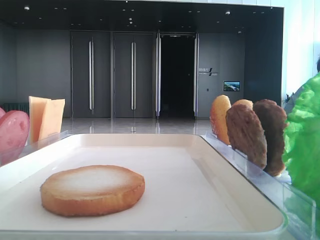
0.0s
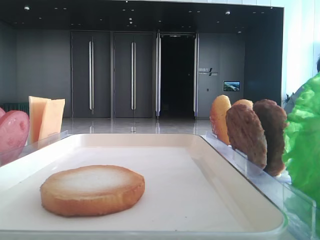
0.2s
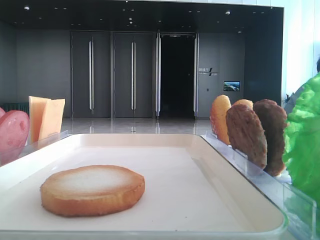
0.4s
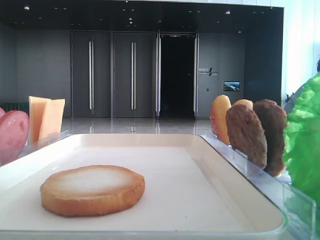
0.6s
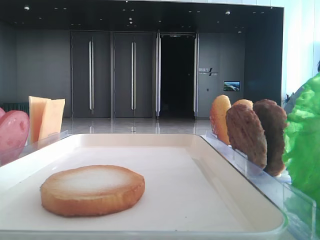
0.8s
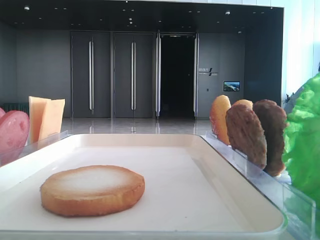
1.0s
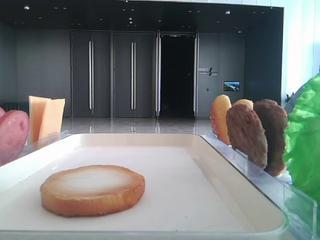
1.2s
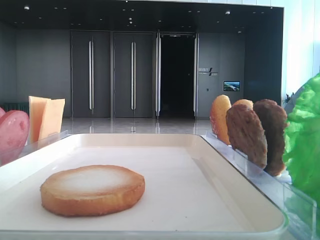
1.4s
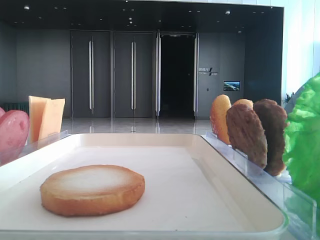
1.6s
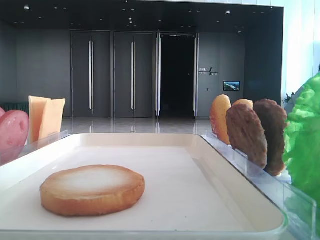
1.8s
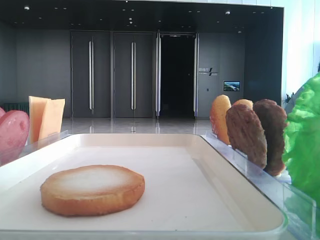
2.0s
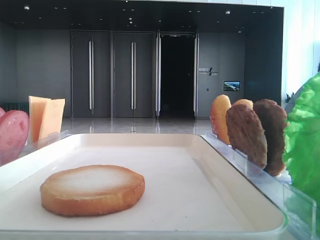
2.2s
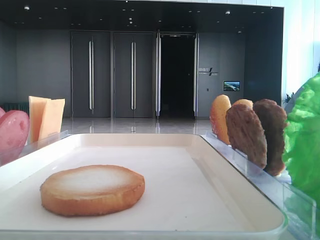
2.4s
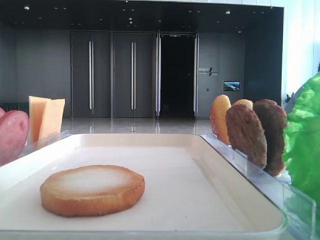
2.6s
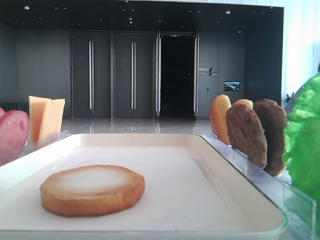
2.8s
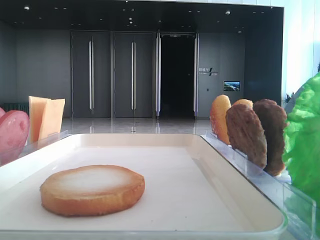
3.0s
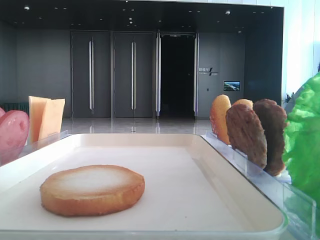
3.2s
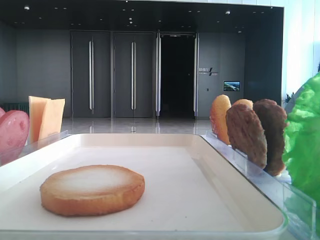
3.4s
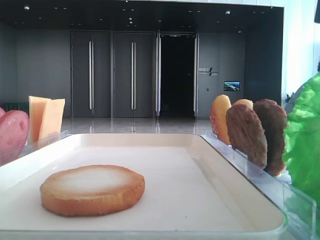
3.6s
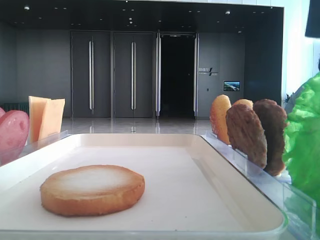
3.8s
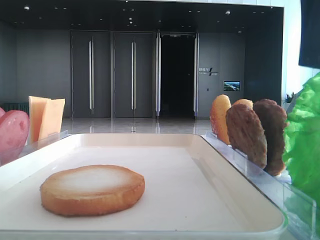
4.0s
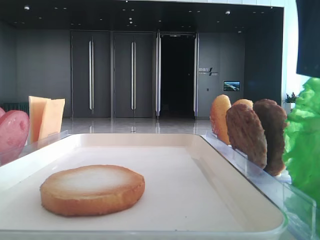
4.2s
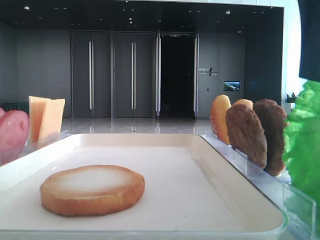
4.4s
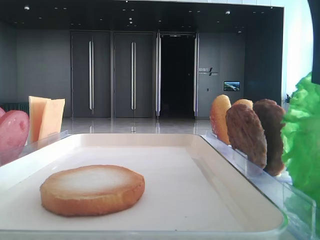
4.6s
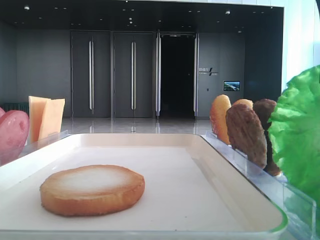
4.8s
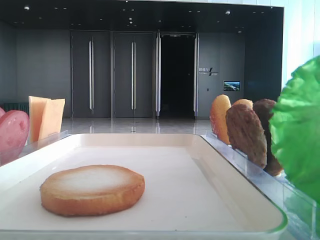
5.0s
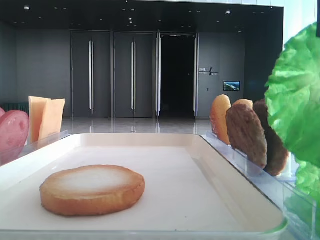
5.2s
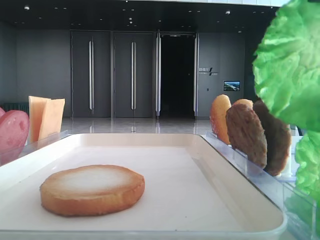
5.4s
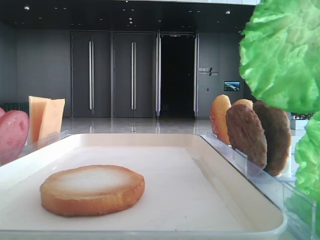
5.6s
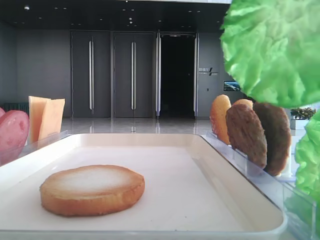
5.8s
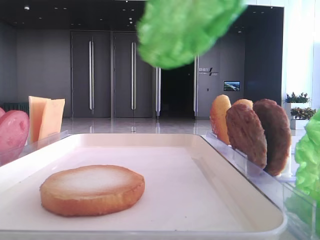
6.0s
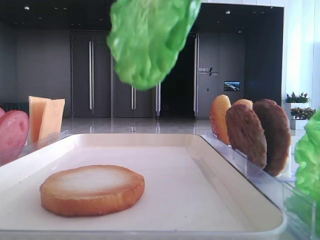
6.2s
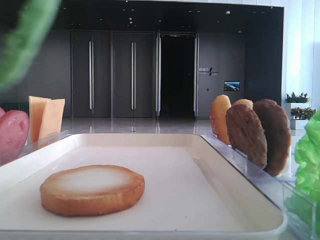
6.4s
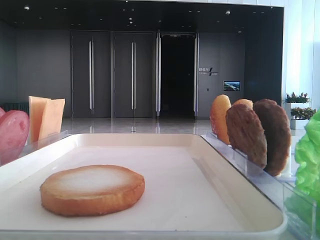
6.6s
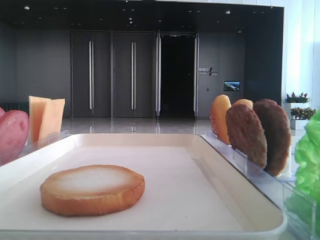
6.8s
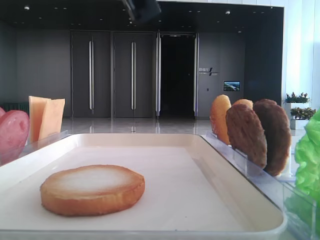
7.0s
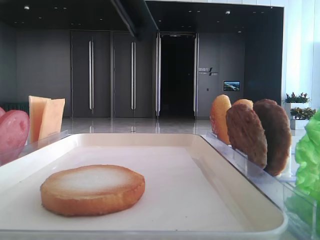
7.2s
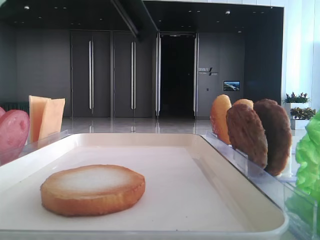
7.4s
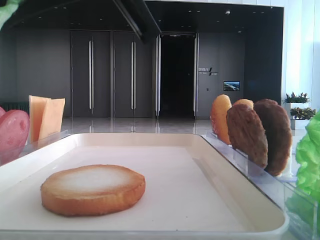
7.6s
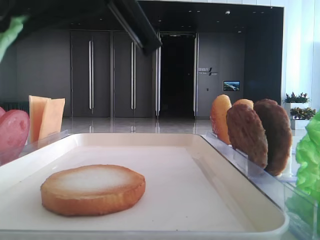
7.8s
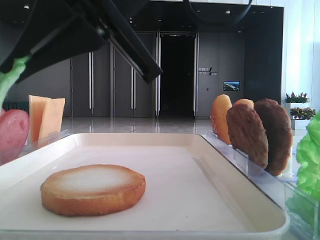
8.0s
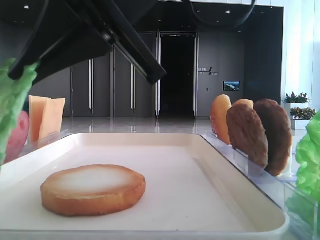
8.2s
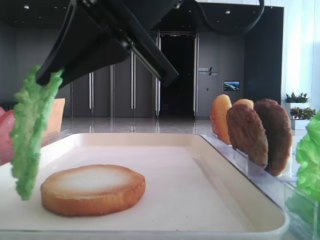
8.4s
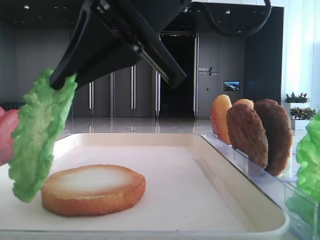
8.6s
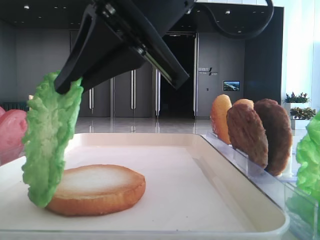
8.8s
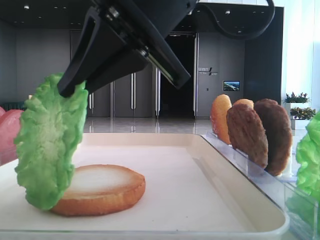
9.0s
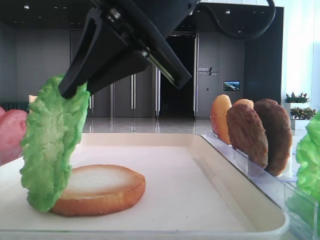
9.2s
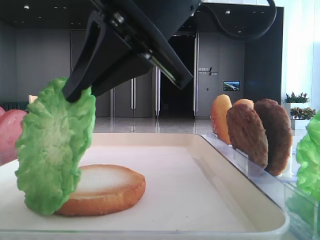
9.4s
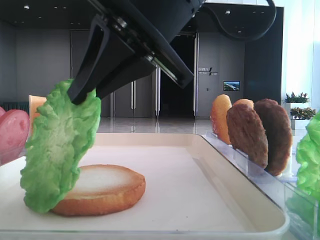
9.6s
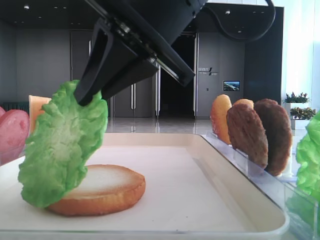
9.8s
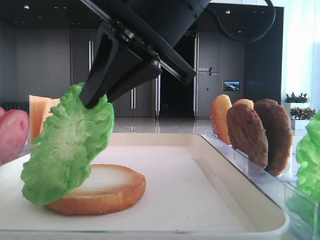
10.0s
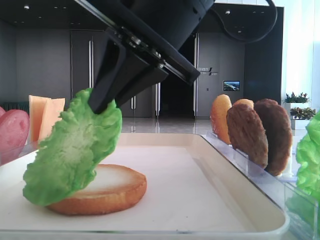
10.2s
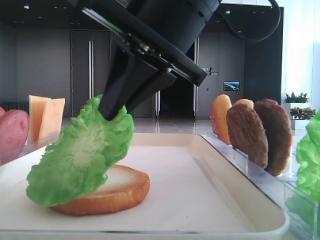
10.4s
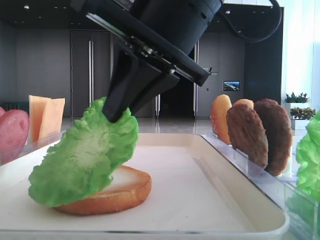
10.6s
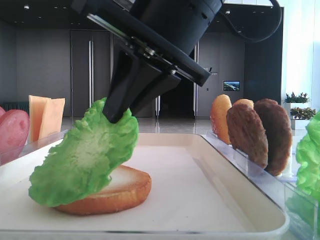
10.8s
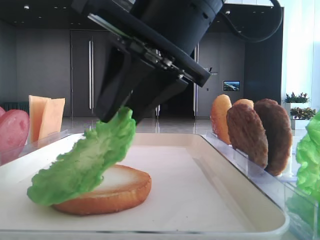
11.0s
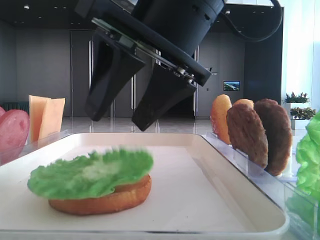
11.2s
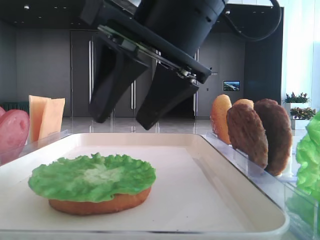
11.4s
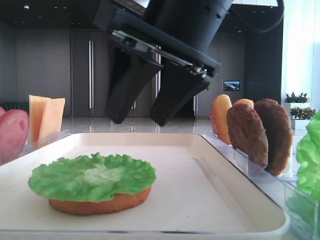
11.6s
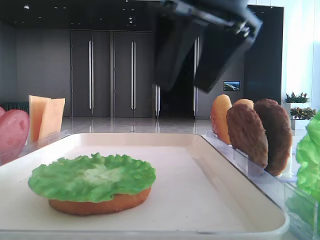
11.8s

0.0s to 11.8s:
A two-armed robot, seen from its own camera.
Step, 0.0s to 4.6s: Grab the lettuce leaf with the right hand.
Step, 4.8s to 11.2s: Place the lettuce leaf on the bottom bread with the right hand.
3.0s to 4.4s: The right gripper shifts by some 5 cm.
4.4s to 6.0s: The right gripper is displaced upward by some 10 cm, and closes its fingers.
6.0s to 7.4s: The right gripper heads to the left and downward, covering approximately 15 cm.
7.4s to 8.8s: The right gripper shifts by about 5 cm.
8.8s to 10.4s: The grippers make only small movements.
10.4s to 11.8s: The right gripper opens.

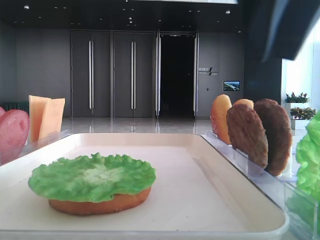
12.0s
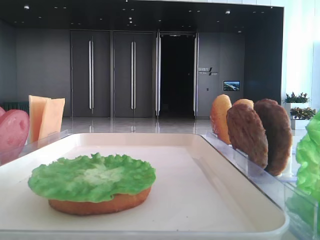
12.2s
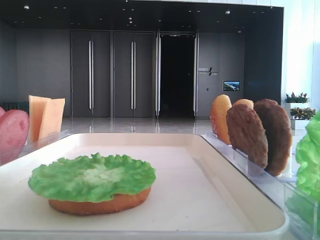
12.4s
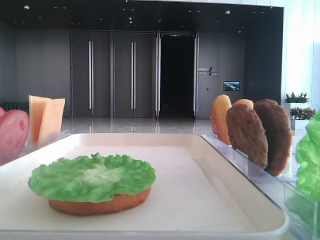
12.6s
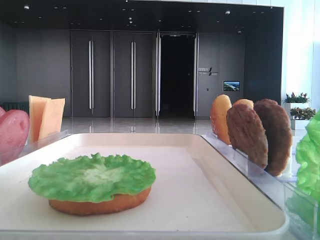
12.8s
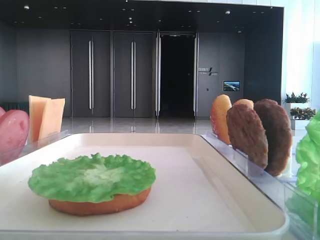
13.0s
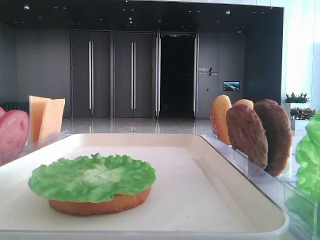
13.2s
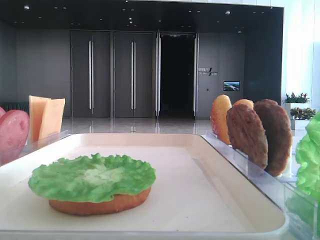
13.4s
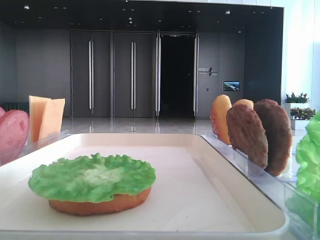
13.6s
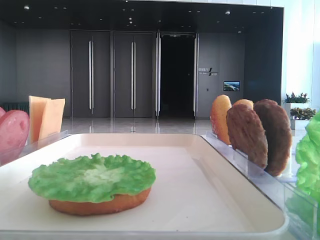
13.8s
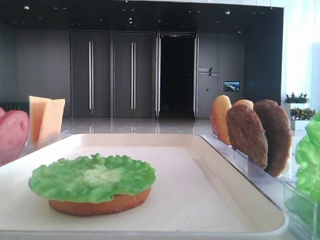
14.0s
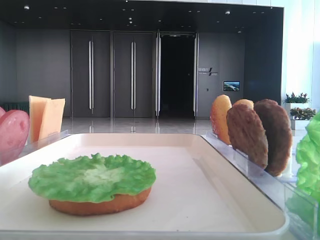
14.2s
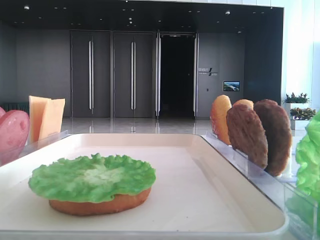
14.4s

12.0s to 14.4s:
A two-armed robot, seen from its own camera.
12.0s to 13.2s: The right gripper travels to the right, backward and upward by some 25 cm.

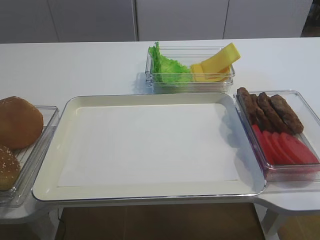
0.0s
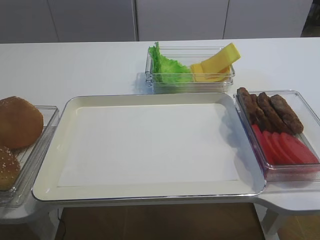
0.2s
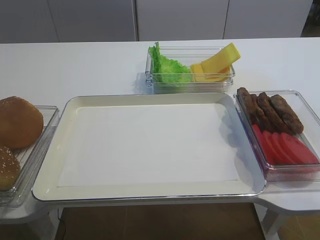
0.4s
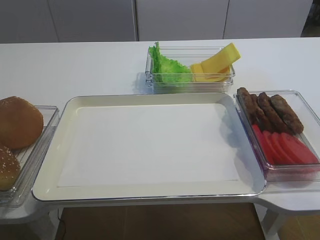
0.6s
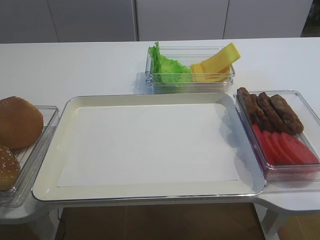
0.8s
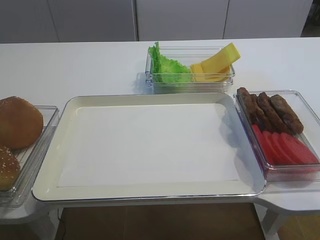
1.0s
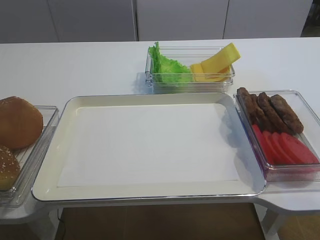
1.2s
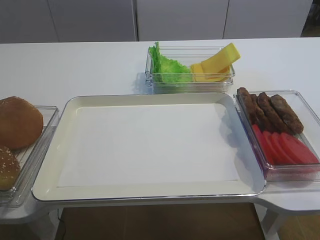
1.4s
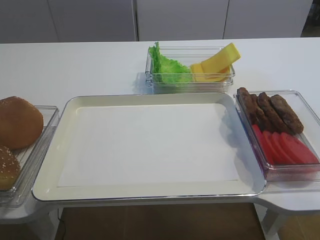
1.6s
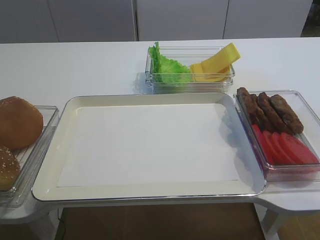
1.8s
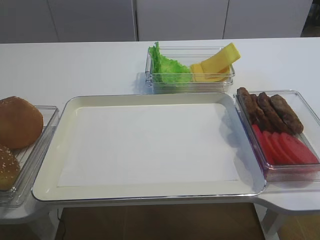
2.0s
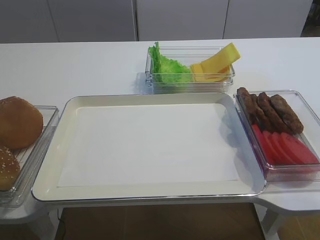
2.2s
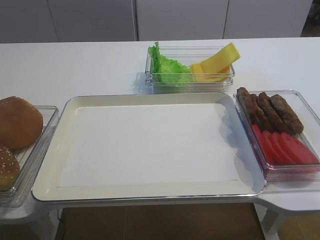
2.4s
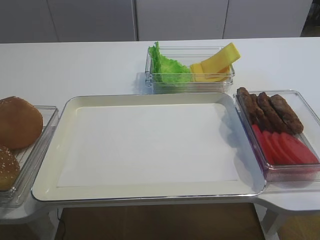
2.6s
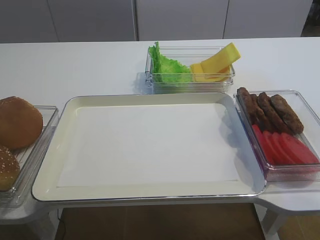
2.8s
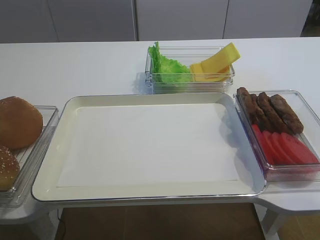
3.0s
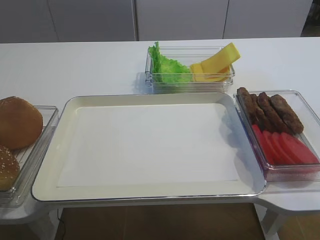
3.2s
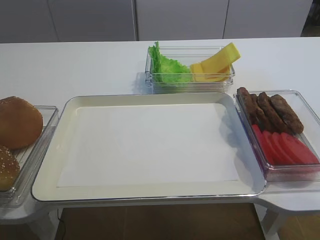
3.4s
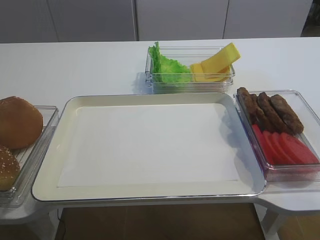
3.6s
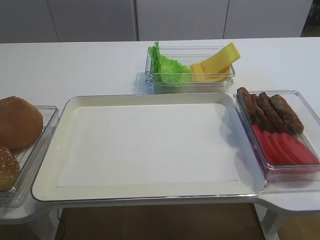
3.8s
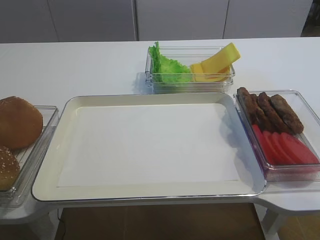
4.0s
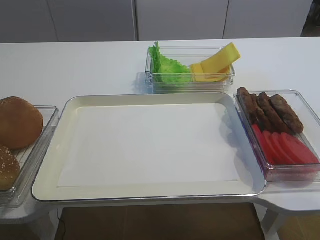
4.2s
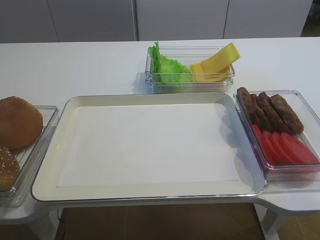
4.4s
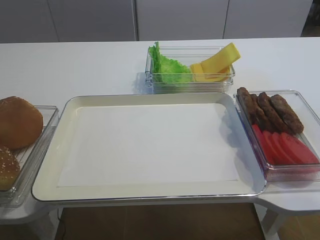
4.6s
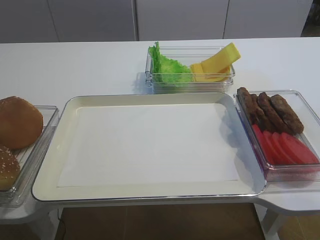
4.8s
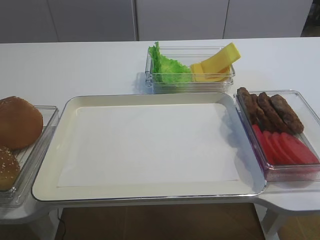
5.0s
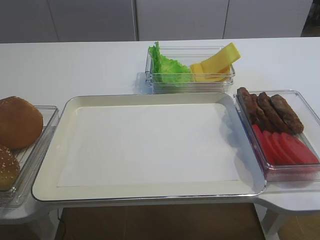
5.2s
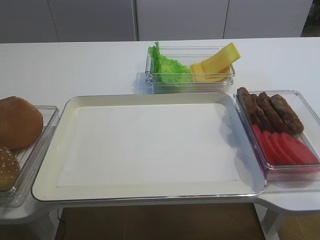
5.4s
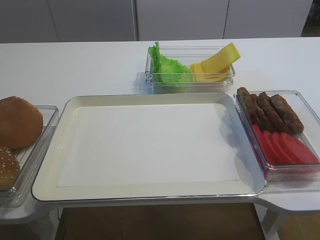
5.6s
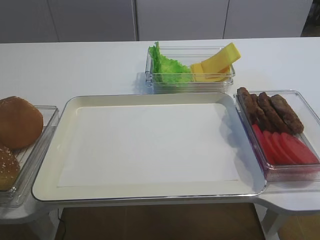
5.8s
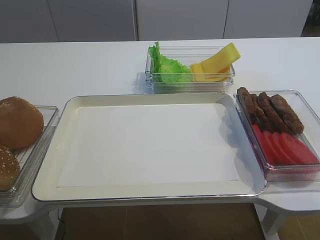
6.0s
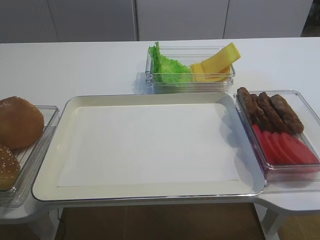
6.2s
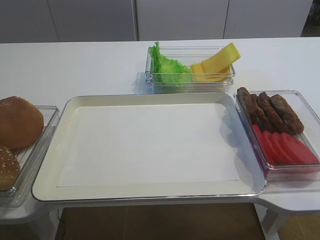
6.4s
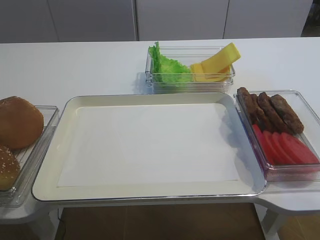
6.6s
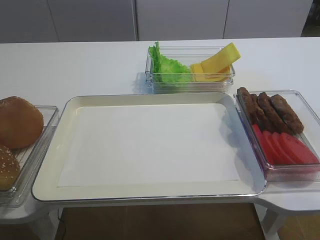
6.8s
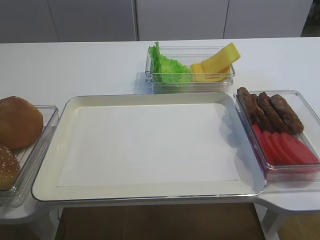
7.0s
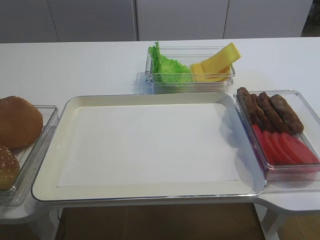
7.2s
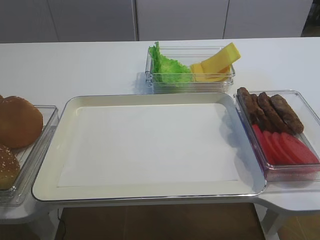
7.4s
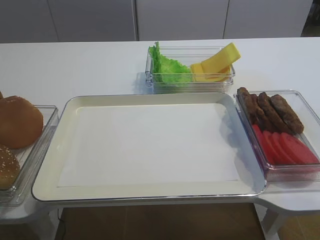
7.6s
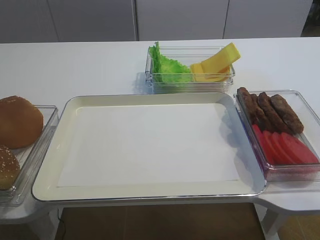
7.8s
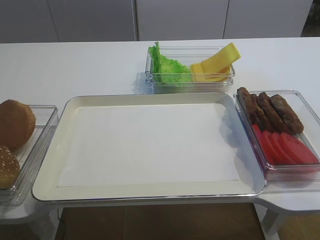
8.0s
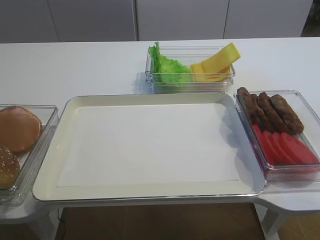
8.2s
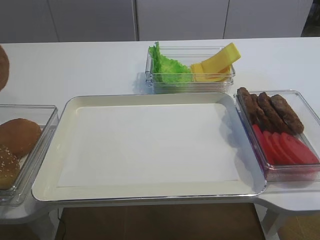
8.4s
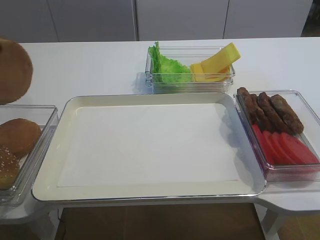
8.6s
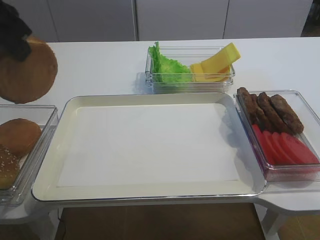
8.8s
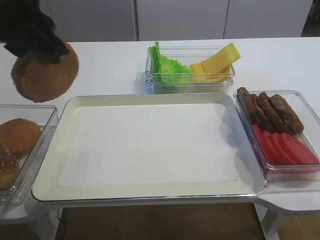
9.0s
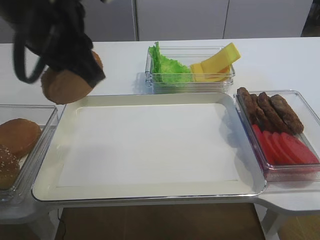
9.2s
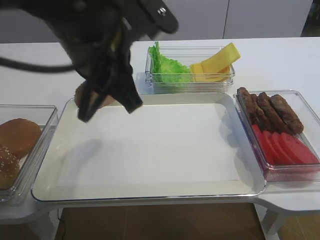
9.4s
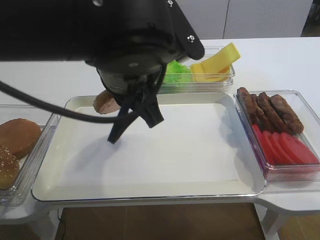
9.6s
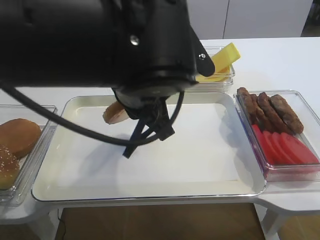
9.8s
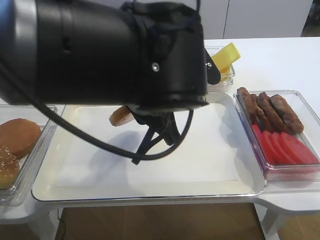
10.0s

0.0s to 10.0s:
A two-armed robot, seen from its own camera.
Step, 0.0s to 8.6s: Pick up the bread slice with the left gripper.
4.2s to 5.8s: Both grippers stay put.
7.2s to 8.6s: The left gripper is displaced upward, to the right and backward by about 15 cm.
8.6s to 10.0s: The left gripper moves to the right and downward, roughly 25 cm.
